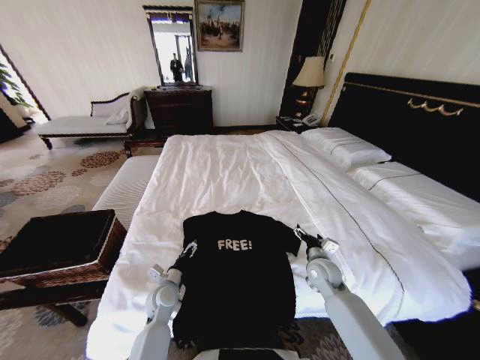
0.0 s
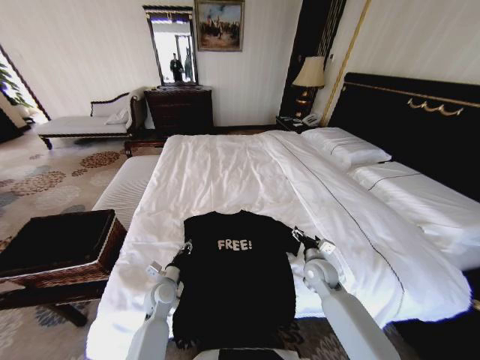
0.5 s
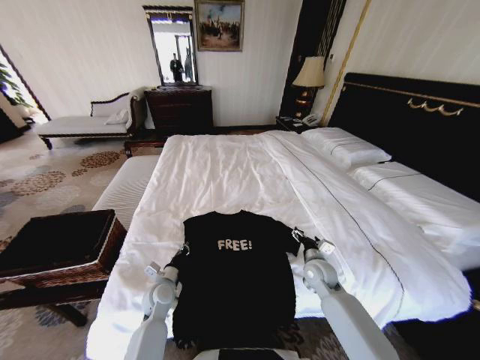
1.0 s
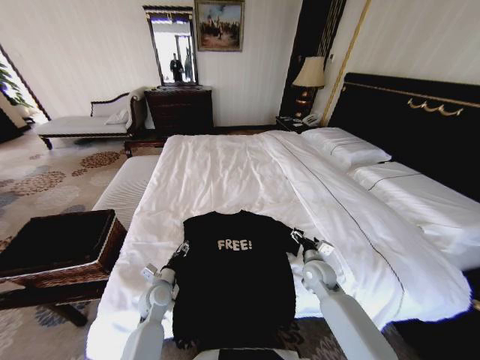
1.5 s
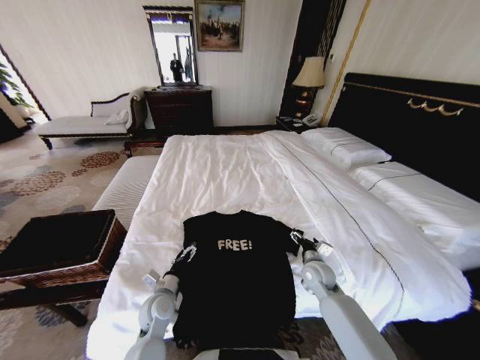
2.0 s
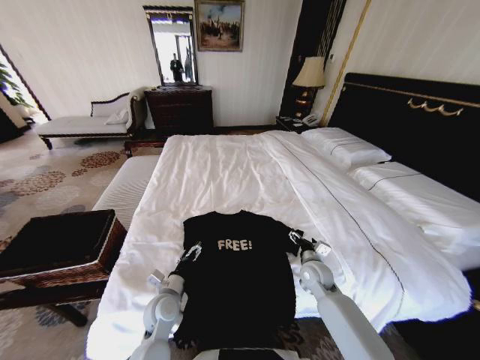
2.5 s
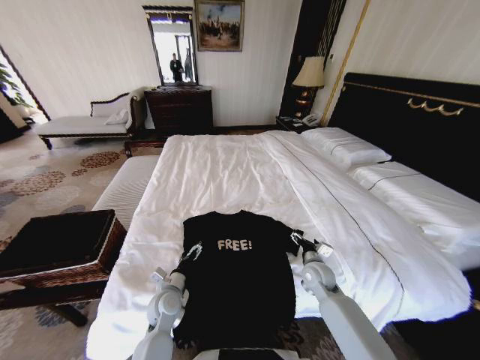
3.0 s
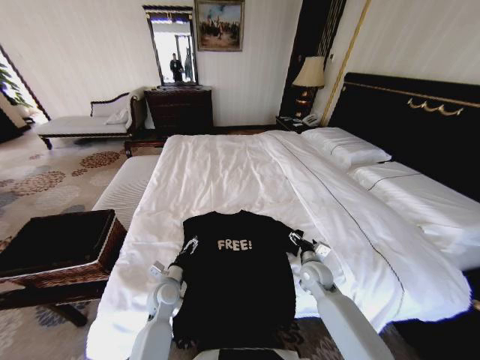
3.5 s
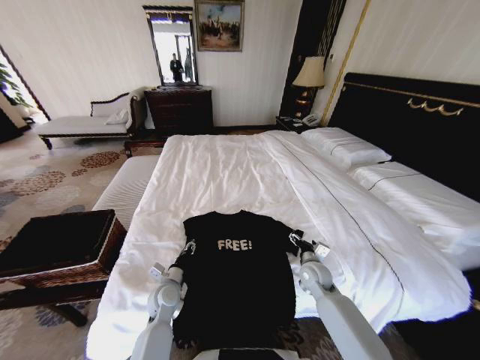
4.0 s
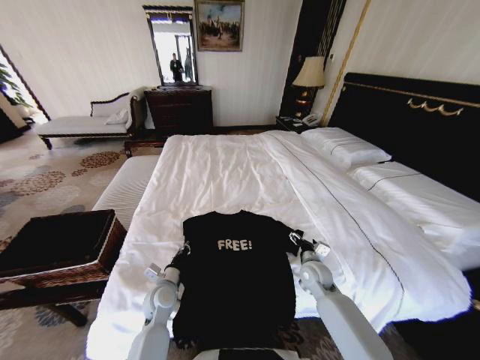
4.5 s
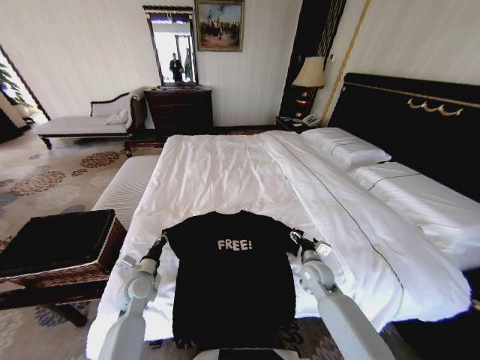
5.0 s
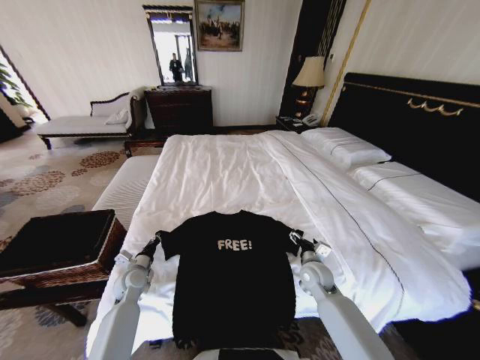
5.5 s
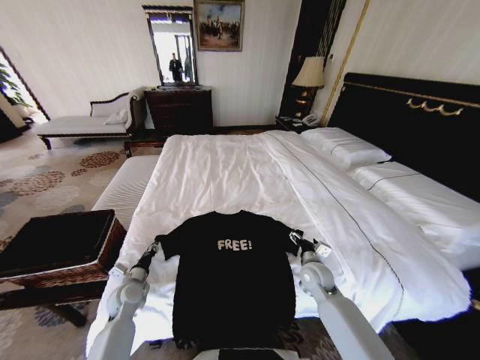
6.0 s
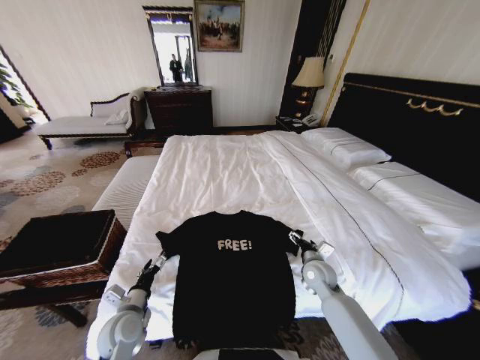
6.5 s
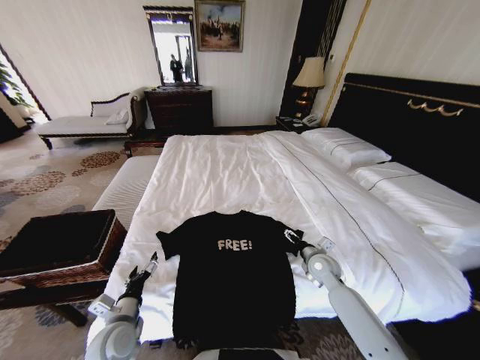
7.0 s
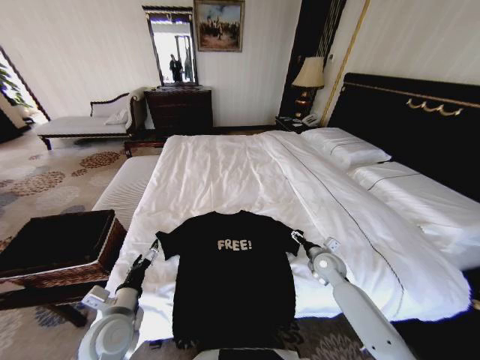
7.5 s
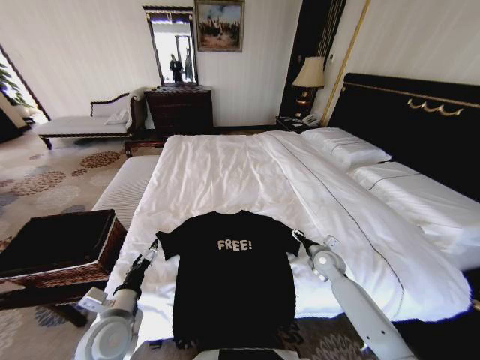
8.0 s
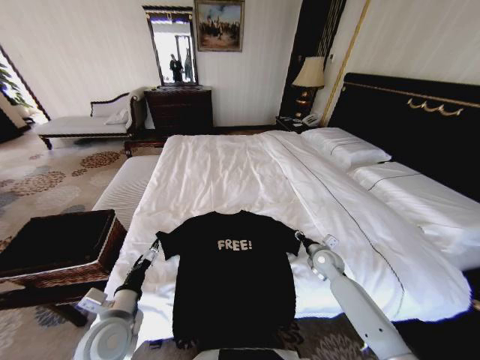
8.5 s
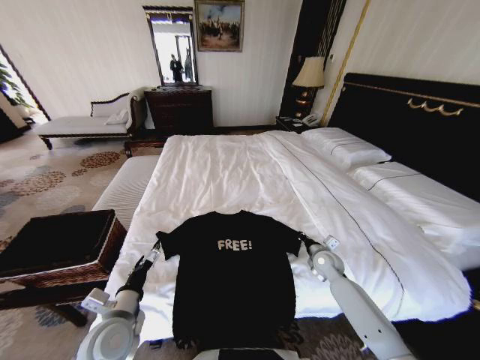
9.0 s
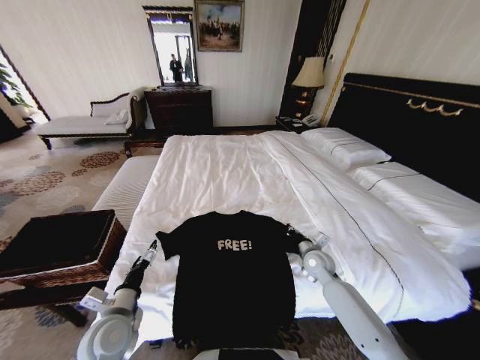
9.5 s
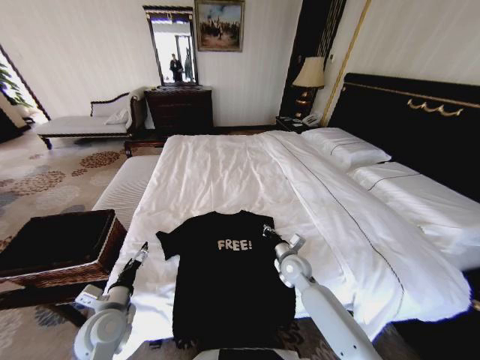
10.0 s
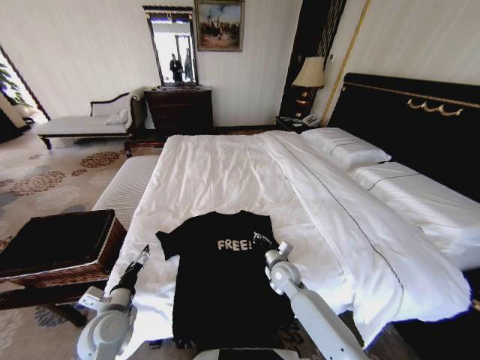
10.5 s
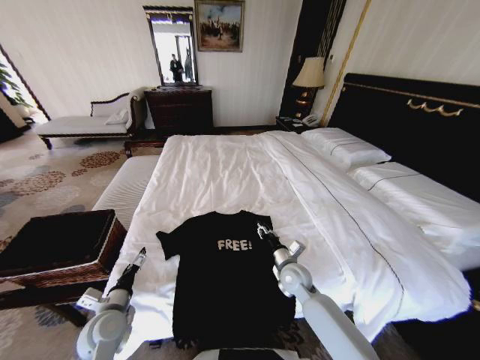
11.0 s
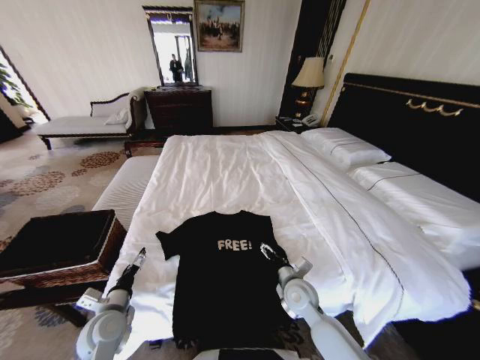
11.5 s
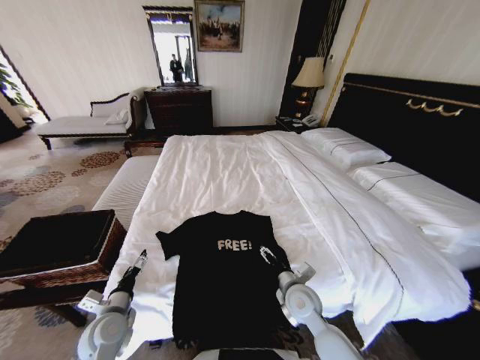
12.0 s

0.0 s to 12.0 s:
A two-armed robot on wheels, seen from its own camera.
Task of the whole recording: Fold the clothes on the bed and place them into the basket.
0.0 to 2.0 s: The left gripper closes and opens again.
2.0 to 4.0 s: The left gripper closes up.
4.0 to 6.0 s: The left gripper is displaced to the left by approximately 15 cm.
6.0 to 8.0 s: The left gripper is displaced backward, upward and to the right by some 20 cm, and opens; the right gripper is displaced to the right and forward by some 10 cm.
8.0 to 10.0 s: The right gripper moves to the left, about 15 cm, and closes its fingers; the left gripper shifts by approximately 5 cm.
10.0 to 12.0 s: The right gripper heads backward, covering approximately 10 cm, and opens its fingers.

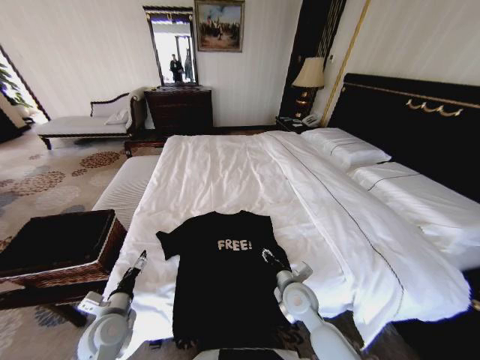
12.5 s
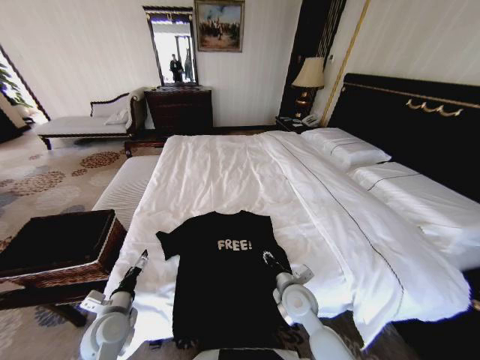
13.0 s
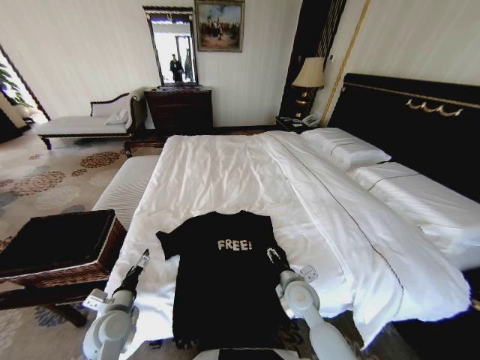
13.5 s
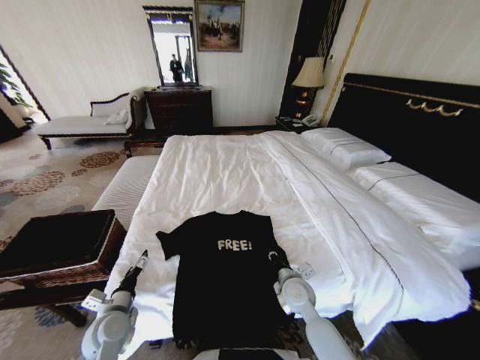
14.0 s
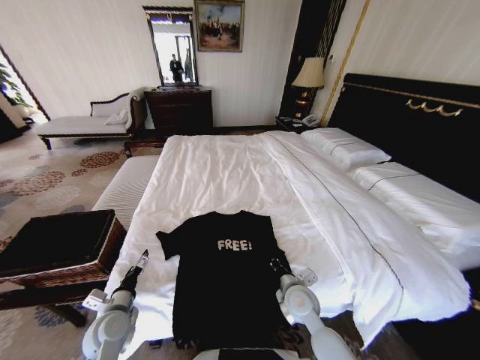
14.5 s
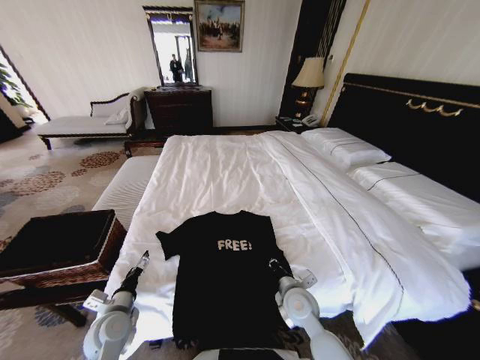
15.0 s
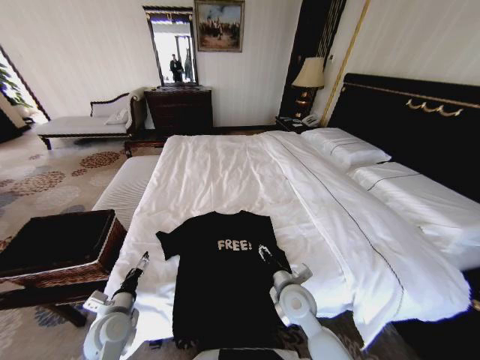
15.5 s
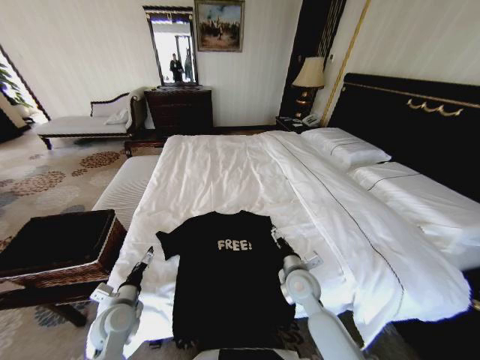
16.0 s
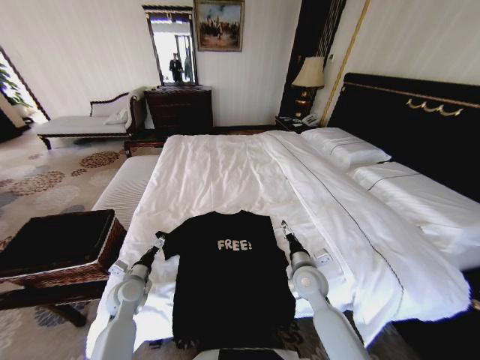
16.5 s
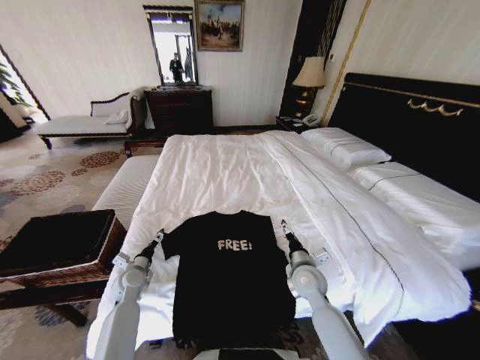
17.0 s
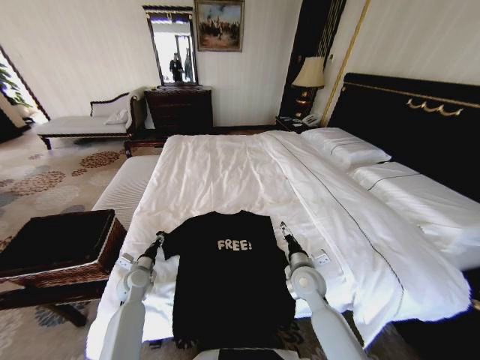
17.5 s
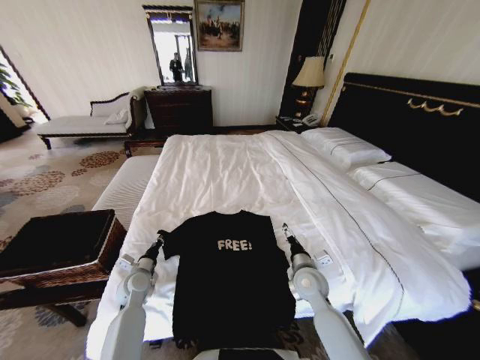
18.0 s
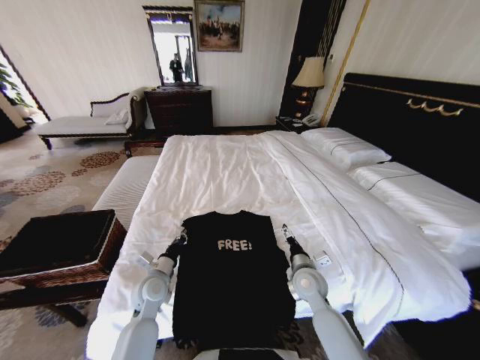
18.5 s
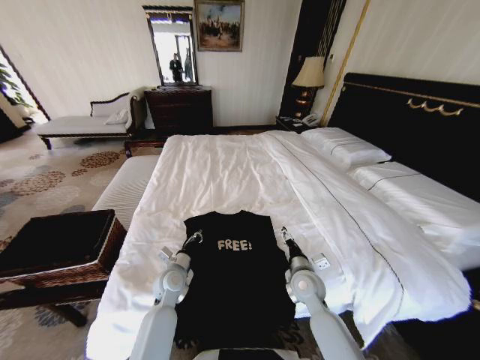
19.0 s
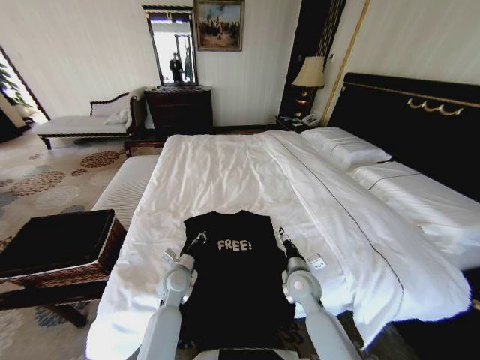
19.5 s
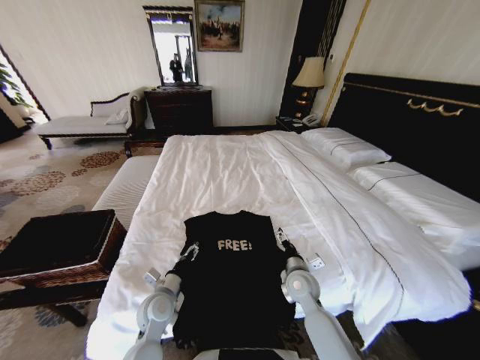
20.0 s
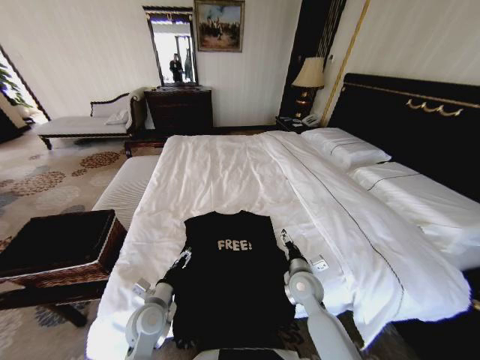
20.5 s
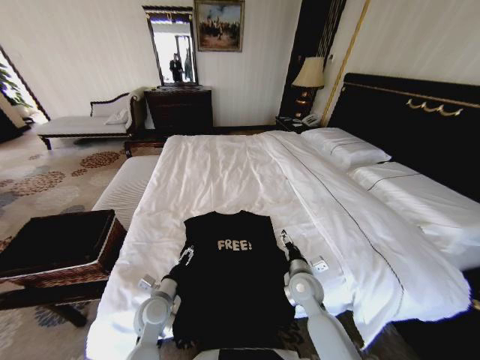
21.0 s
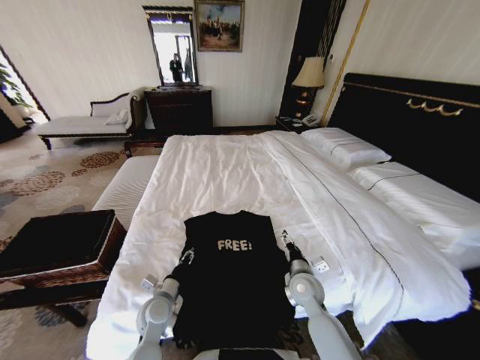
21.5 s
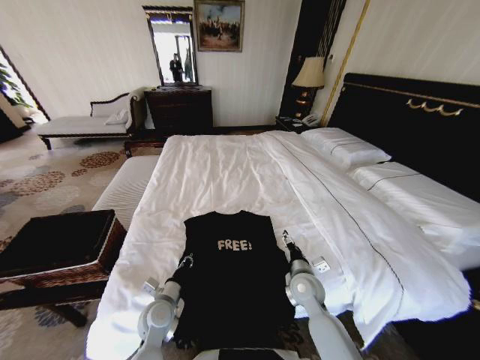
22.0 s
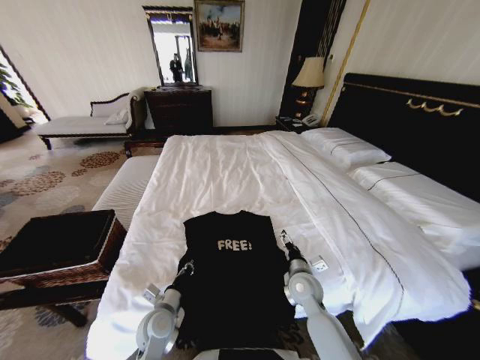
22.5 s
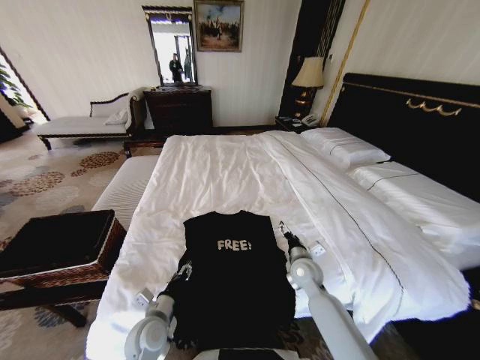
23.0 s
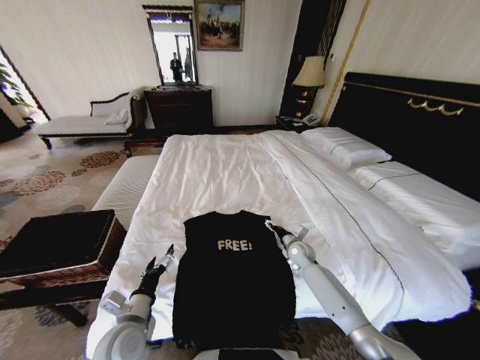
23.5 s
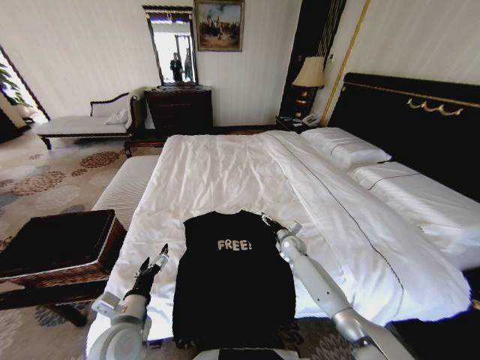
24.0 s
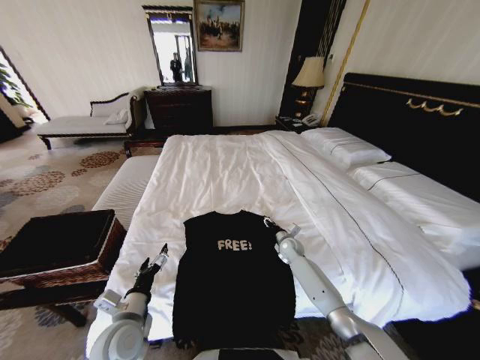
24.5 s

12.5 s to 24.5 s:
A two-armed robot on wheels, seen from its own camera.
Task of the whole recording: Fold the clothes on the bed and place them into the basket.
12.5 to 14.5 s: The right gripper closes.
14.5 to 16.5 s: The right gripper shifts by approximately 5 cm, and opens its fingers. Meanwhile the left gripper travels forward by roughly 10 cm.
16.5 to 18.5 s: The left gripper travels to the right by approximately 10 cm, and closes up.
18.5 to 20.5 s: The left gripper goes some 5 cm backward, and opens its fingers.
20.5 to 22.5 s: The left gripper closes up.
22.5 to 24.5 s: The left gripper shifts about 10 cm upward, and opens. Meanwhile the right gripper heads forward and downward, covering approximately 20 cm, and closes up.

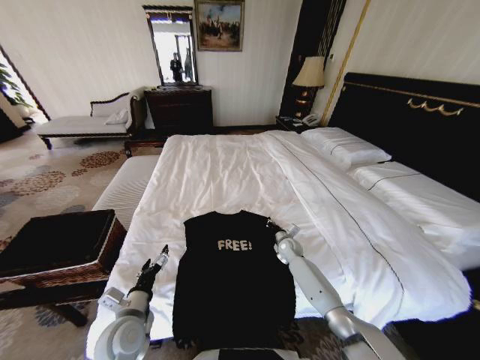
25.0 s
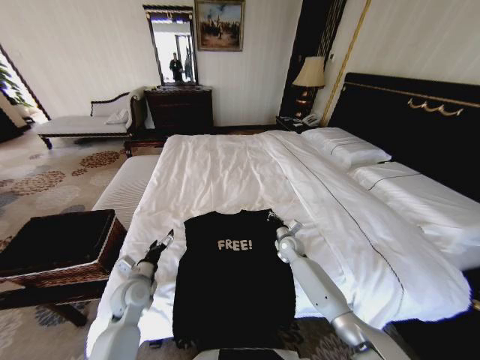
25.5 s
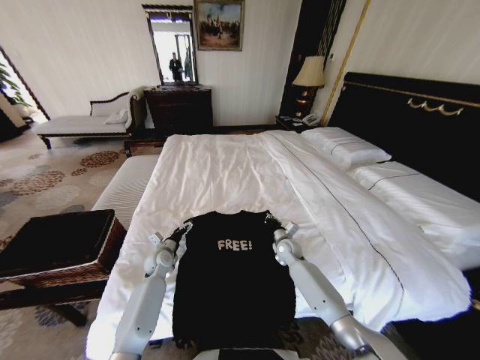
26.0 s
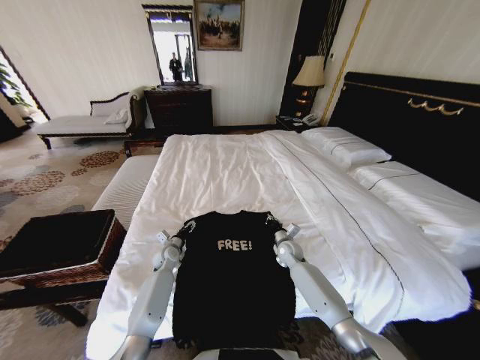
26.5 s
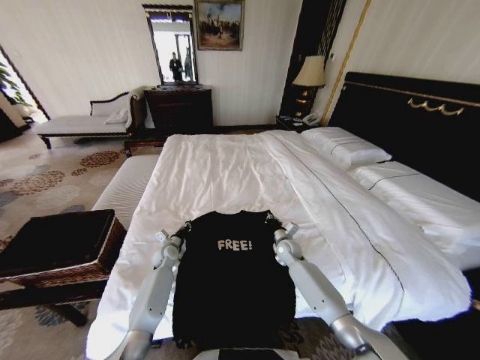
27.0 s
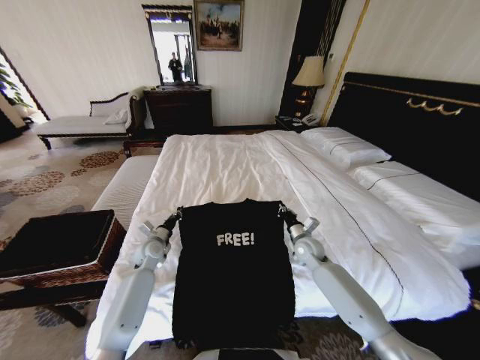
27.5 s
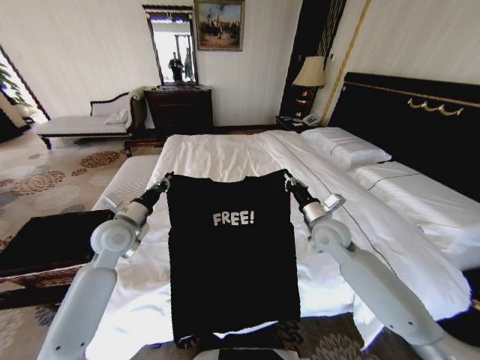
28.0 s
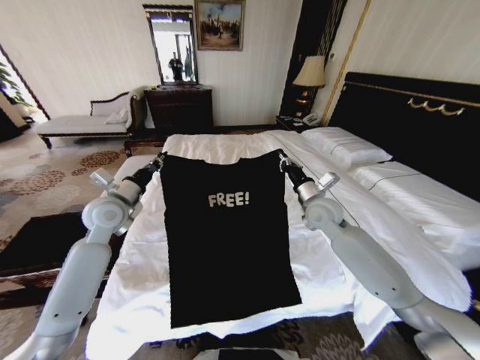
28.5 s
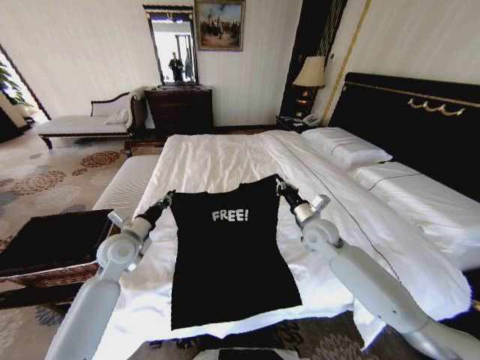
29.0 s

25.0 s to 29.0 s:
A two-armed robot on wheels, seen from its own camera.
Task of the whole recording: Fold the clothes on the bed and place them into the basket.
25.0 to 27.0 s: The left gripper moves forward and downward, some 30 cm, and closes.
27.0 to 29.0 s: The right gripper shifts approximately 20 cm upward, while the left gripper goes some 25 cm upward and backward.
